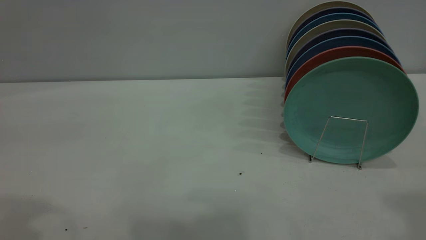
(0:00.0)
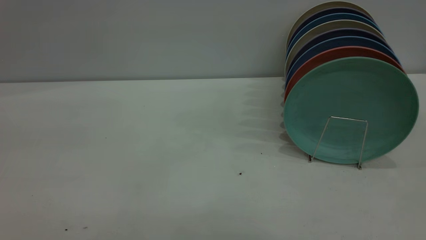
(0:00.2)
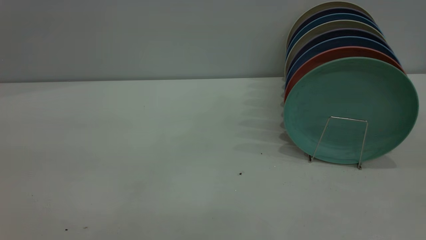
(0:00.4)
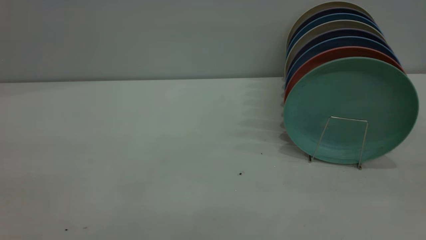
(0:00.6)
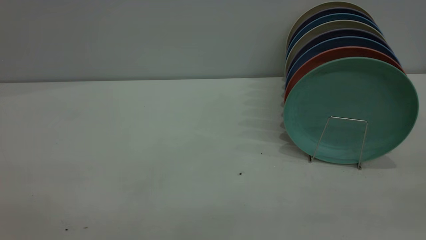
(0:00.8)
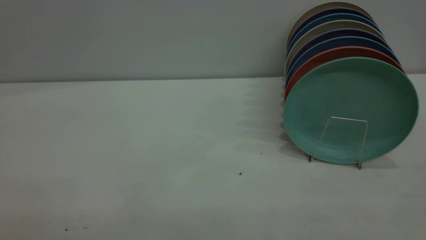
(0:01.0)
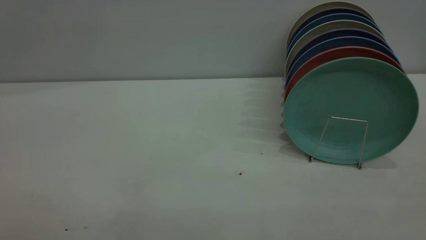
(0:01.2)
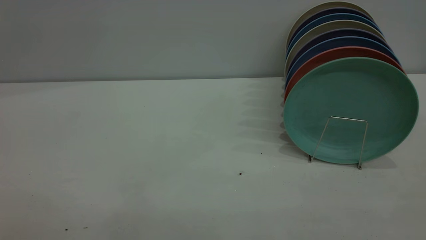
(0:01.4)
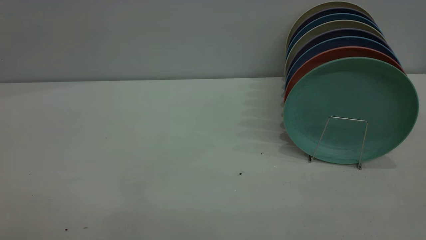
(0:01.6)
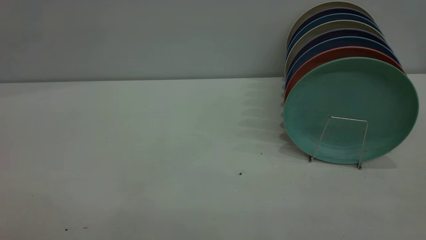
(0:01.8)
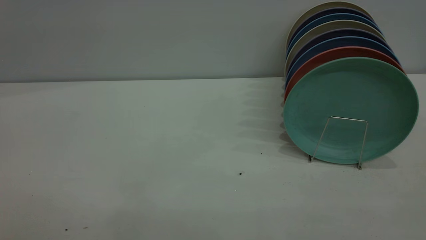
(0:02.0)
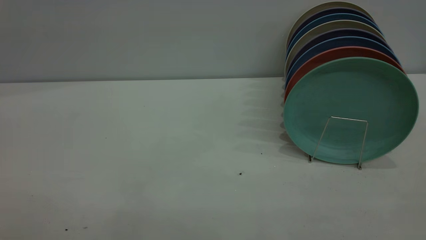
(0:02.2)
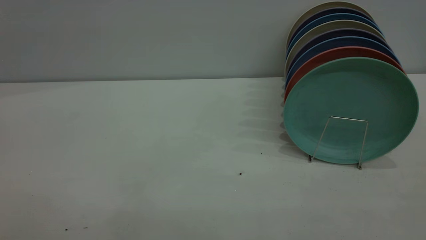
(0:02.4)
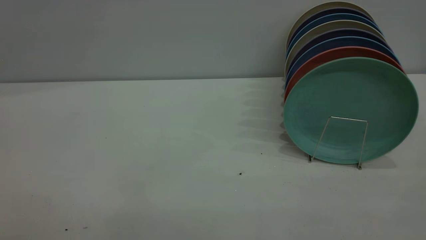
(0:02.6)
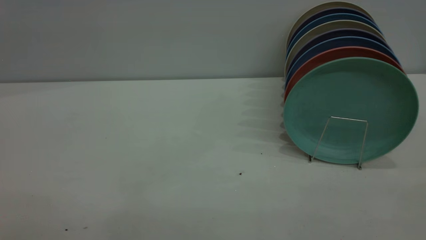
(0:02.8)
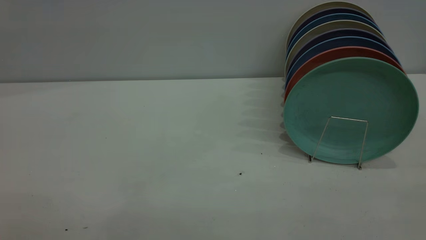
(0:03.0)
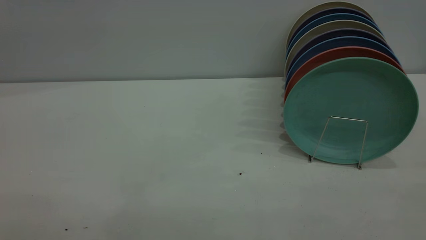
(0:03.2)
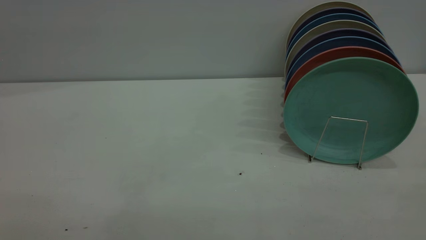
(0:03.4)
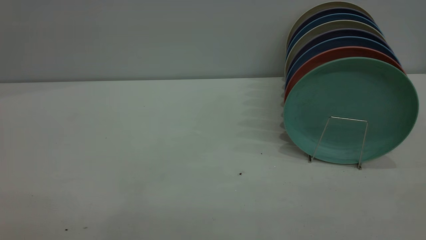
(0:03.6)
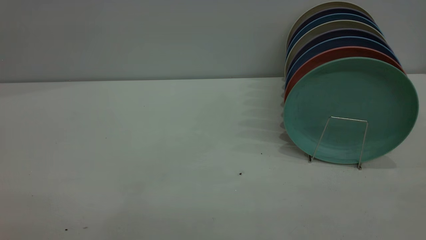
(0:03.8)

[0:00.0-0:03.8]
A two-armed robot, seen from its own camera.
Task of the whole recording: the left gripper grasp the green plate, the left gripper pass the green plate to the right gripper, and the right gripper place the green plate on the plate rack.
0:02.6 to 0:03.8: Neither gripper changes place.

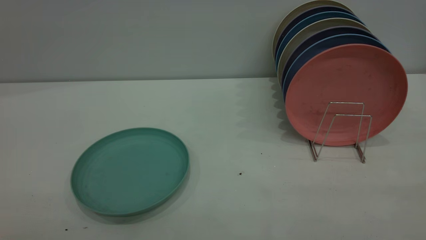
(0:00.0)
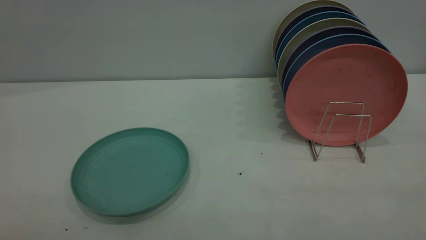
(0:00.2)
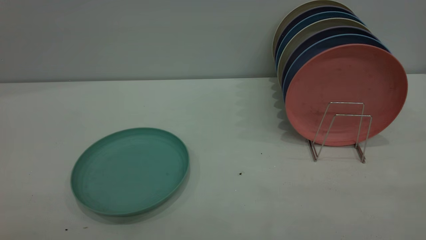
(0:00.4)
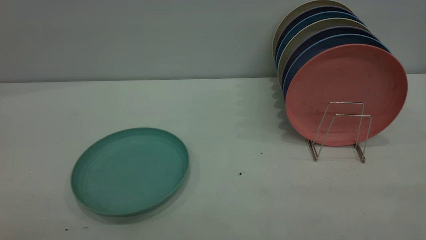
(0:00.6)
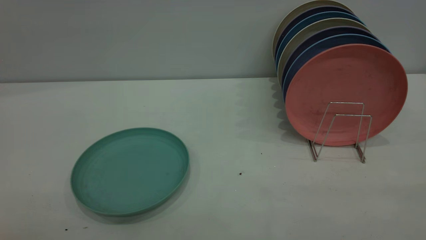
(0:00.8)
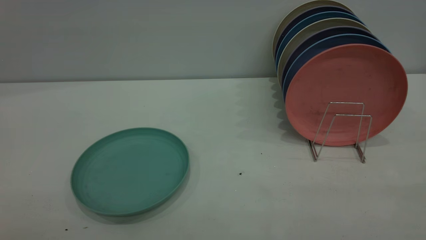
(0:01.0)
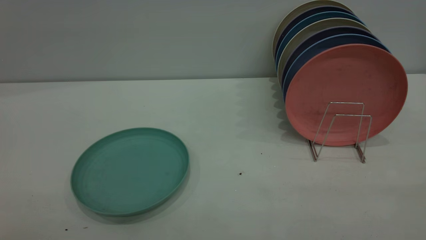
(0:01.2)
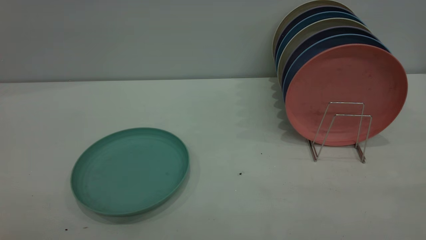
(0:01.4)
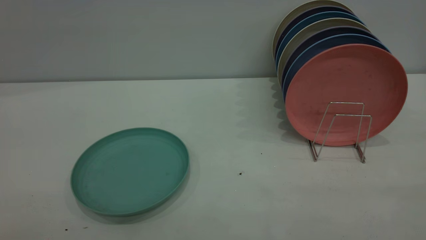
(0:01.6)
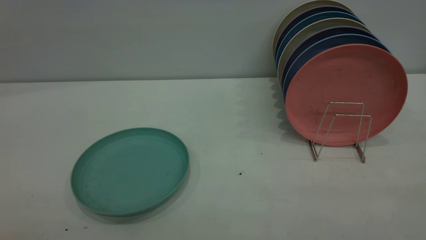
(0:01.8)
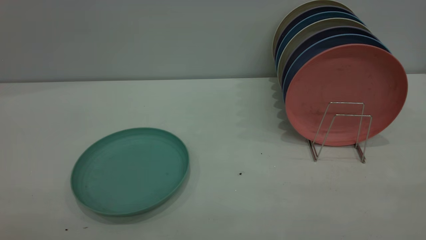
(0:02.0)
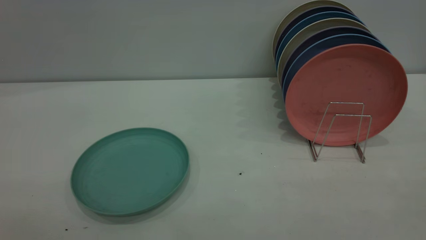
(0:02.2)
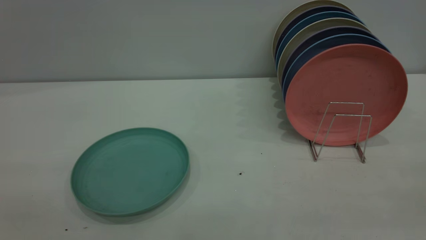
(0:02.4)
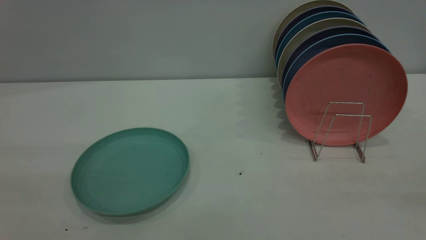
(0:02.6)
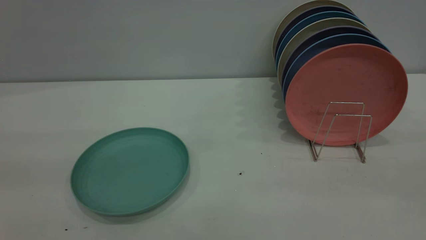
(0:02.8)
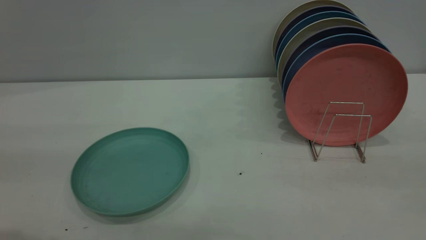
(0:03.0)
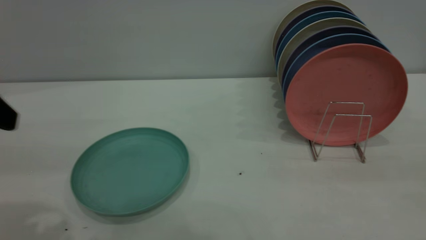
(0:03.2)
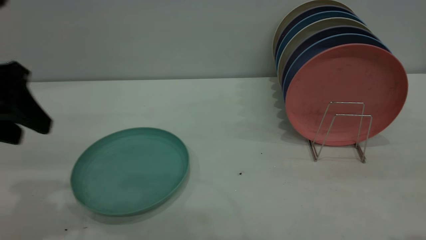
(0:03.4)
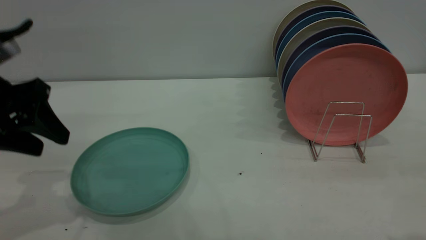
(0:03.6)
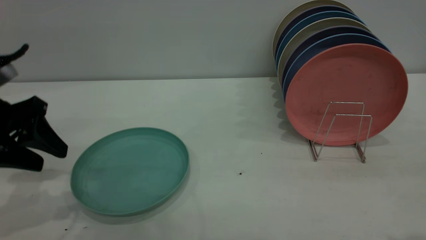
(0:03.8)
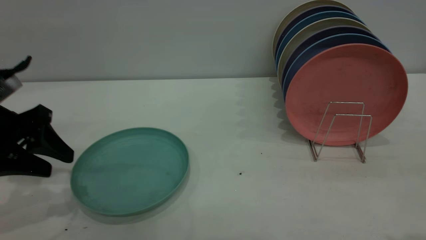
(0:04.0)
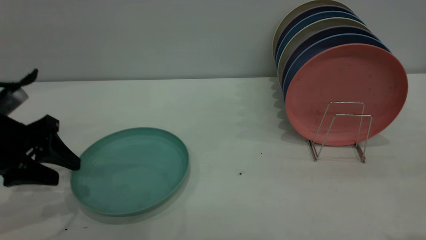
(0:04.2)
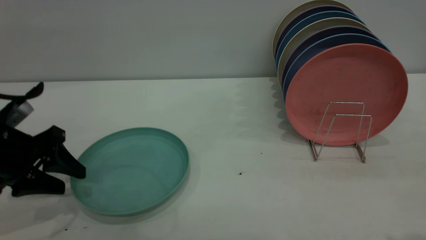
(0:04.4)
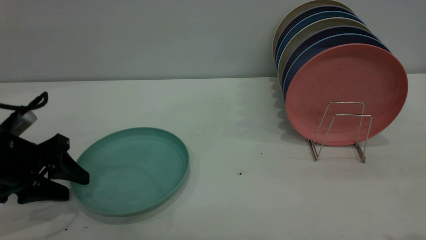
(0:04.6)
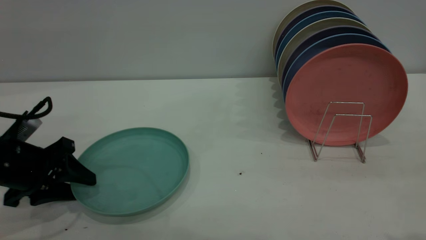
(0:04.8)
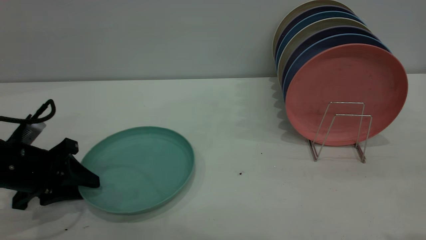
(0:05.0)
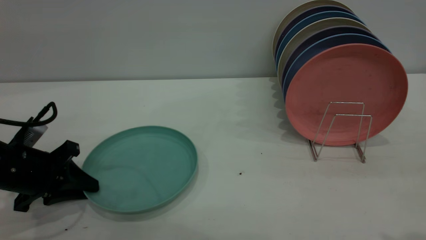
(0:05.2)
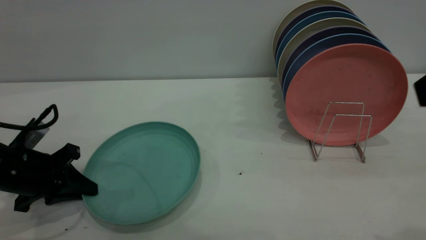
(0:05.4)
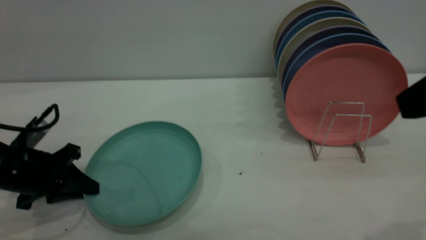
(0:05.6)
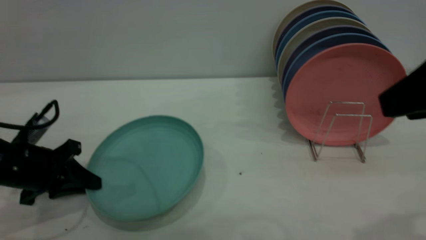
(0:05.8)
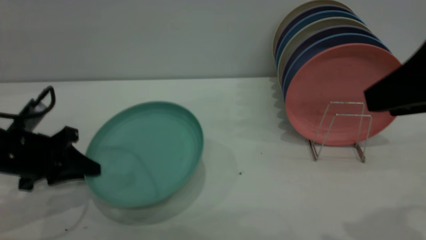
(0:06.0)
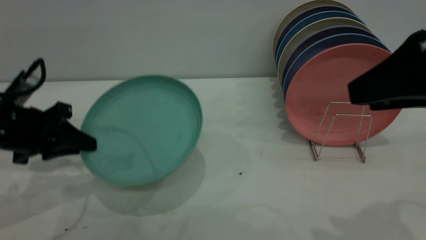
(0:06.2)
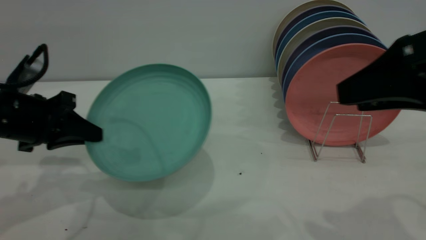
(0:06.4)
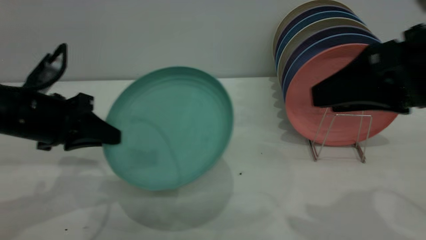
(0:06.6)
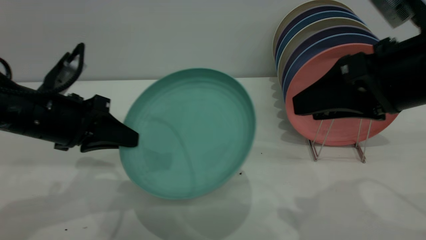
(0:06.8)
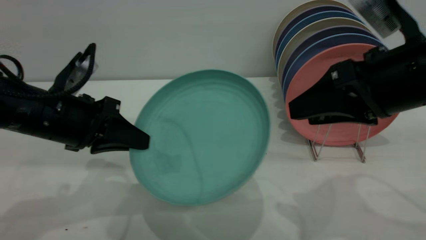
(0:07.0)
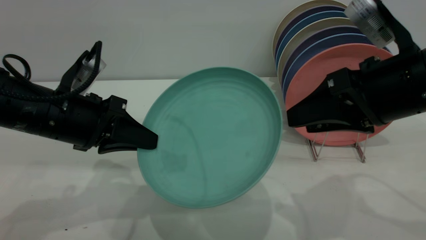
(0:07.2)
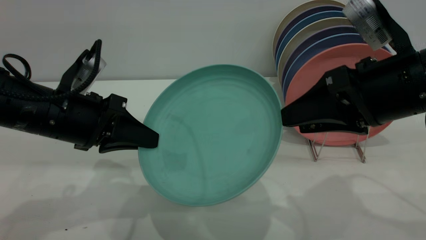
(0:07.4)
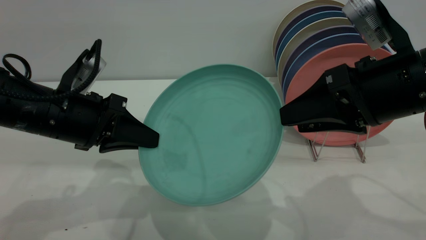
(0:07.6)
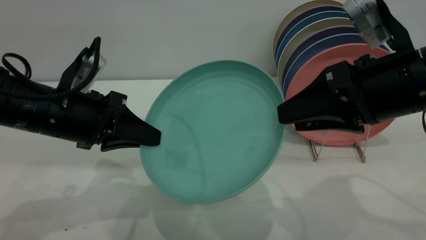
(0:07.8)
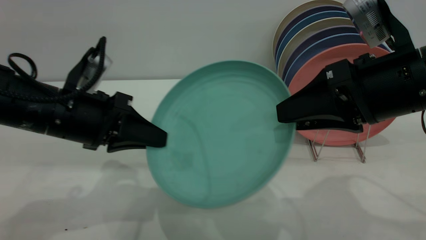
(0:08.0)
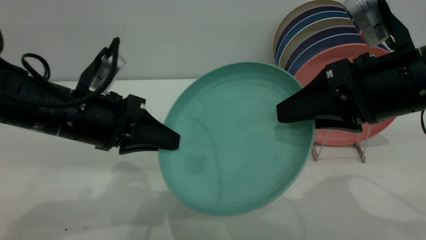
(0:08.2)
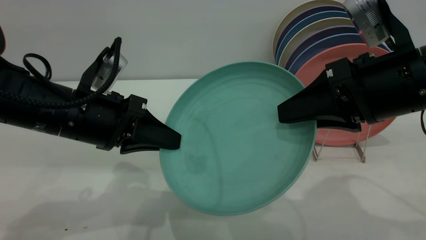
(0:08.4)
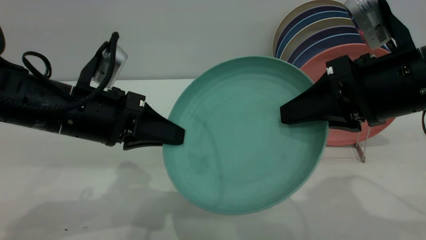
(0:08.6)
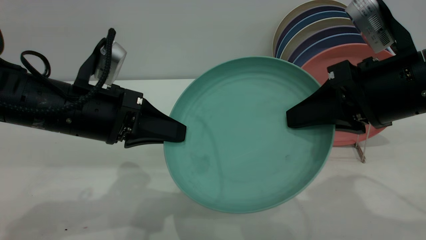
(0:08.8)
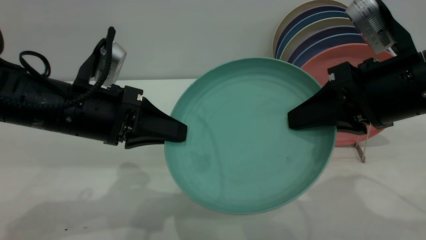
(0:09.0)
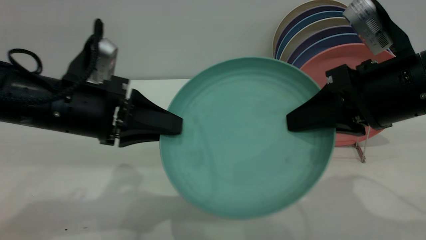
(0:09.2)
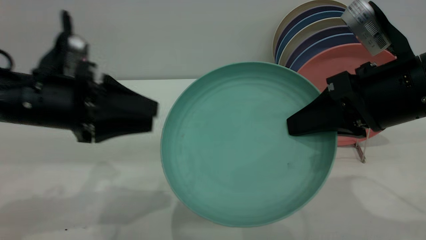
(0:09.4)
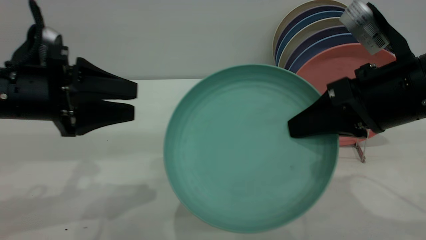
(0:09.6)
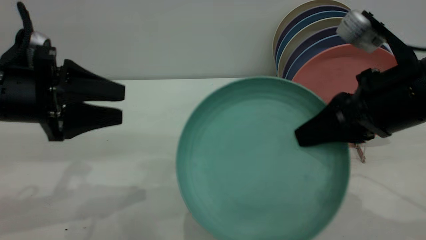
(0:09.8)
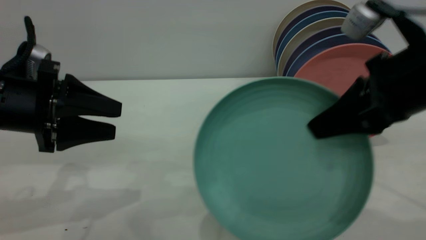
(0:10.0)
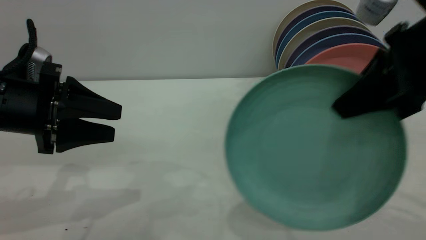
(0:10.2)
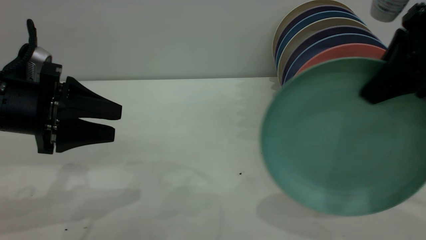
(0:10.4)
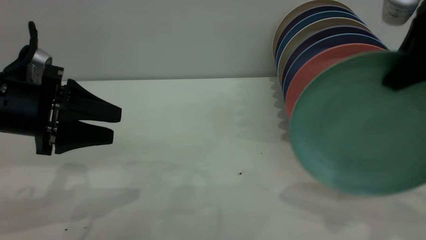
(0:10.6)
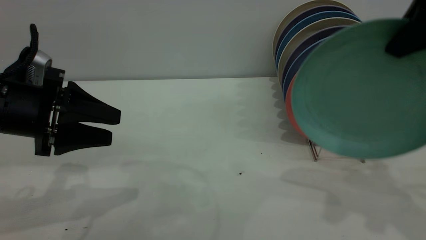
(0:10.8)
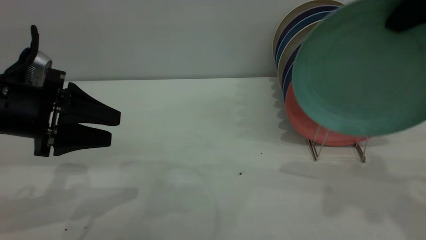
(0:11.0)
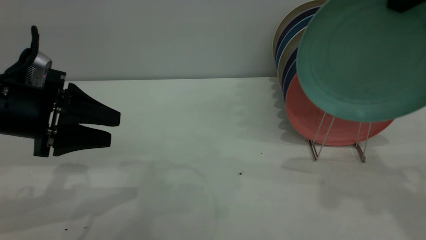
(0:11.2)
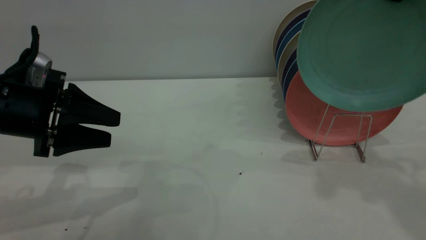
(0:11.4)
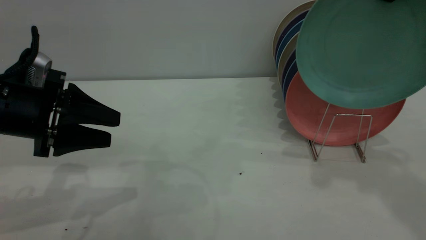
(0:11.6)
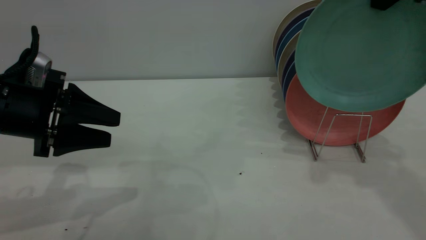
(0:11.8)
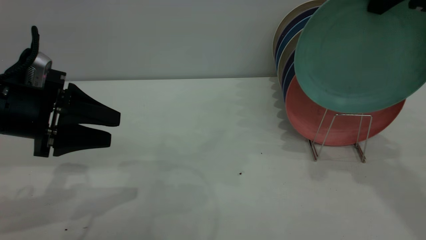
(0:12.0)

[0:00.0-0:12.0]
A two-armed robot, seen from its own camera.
Task of the whole recording: the left gripper grasp the green plate, the left gripper pass the green plate to the right gripper, and the right gripper place the green plate on the plate rack.
Step, 0:00.0 to 0:05.8: Pick up the plate with the left gripper.
Step, 0:06.0 to 0:09.8: Pass the plate from the left gripper to the right gripper.
0:00.0 to 0:01.6: Both grippers stay put.
0:03.0 to 0:04.4: The left gripper heads downward and forward, covering about 20 cm.
0:04.4 to 0:06.0: The left gripper closes, while the right gripper shifts by about 5 cm.
0:06.0 to 0:07.6: The left gripper is displaced to the right and upward by about 10 cm; the right gripper shifts roughly 10 cm downward and forward.
0:07.6 to 0:09.0: The right gripper closes up.
0:09.0 to 0:10.4: The left gripper shifts some 10 cm to the left, and opens; the right gripper goes some 10 cm upward.
0:10.4 to 0:12.0: The right gripper travels forward and upward by roughly 10 cm.

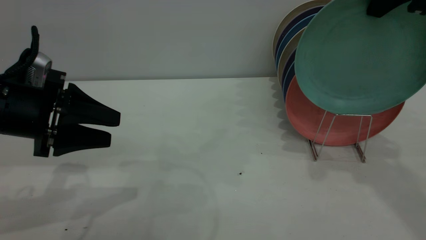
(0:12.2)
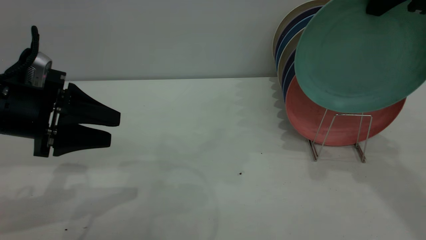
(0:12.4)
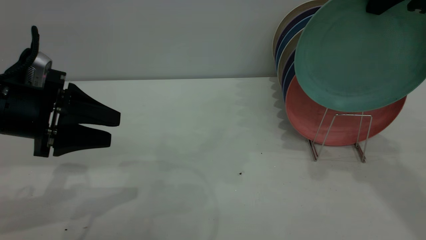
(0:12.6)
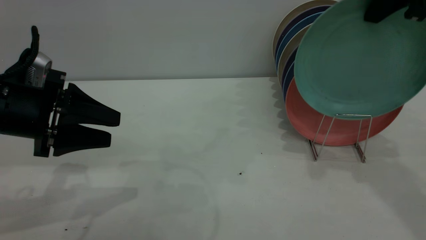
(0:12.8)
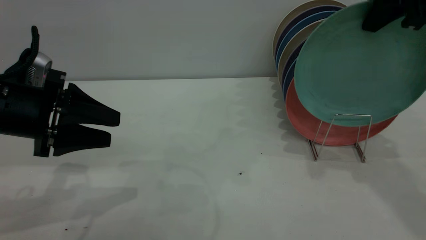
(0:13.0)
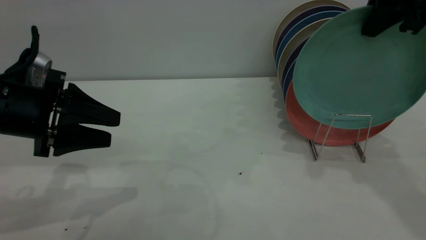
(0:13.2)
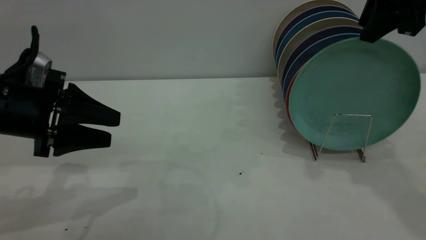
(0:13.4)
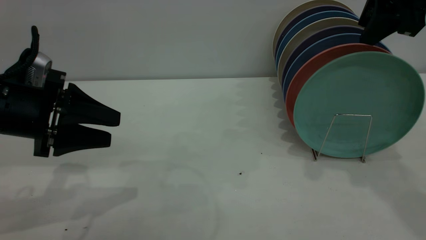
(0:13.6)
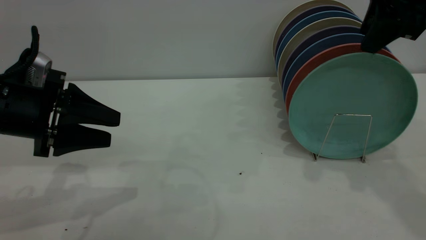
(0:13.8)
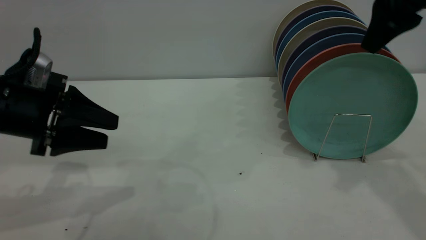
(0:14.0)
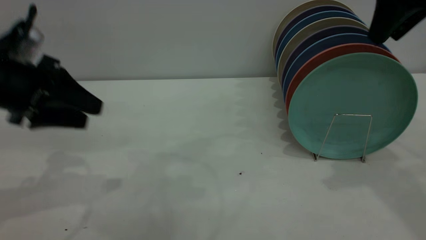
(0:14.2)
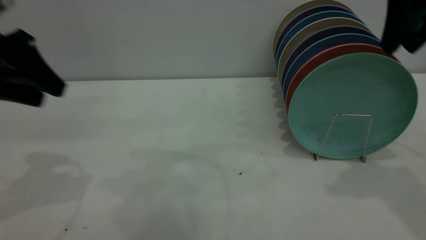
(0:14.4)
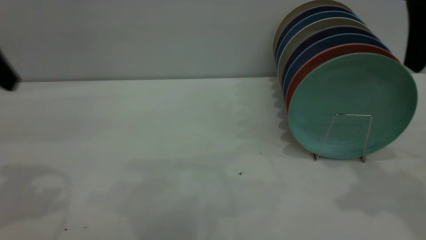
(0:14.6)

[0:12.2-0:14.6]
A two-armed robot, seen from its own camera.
Task of the whole recording: the left gripper grasp the green plate, the left gripper pass the green plate to the right gripper, and the right gripper place the green plate on the plate rack.
Step, 0:12.2 to 0:14.4: Place the plate on the shelf.
0:12.2 to 0:13.4: The right gripper opens.
0:13.4 to 0:14.6: The right gripper goes approximately 5 cm backward, while the left gripper shifts some 15 cm upward.
